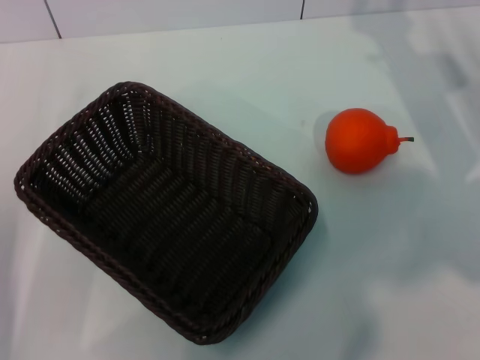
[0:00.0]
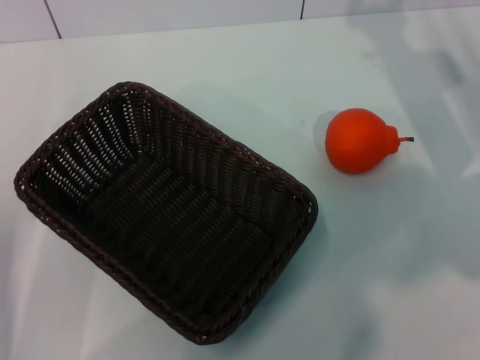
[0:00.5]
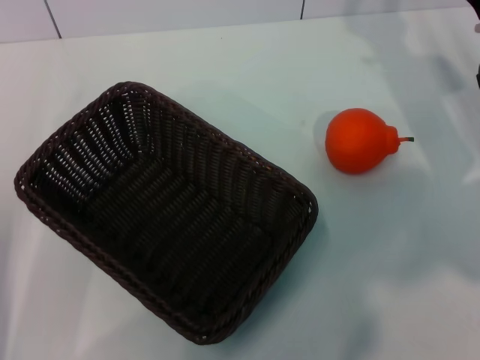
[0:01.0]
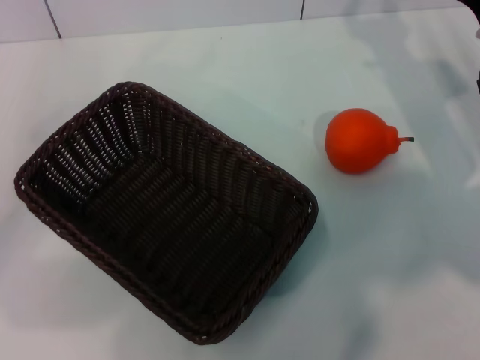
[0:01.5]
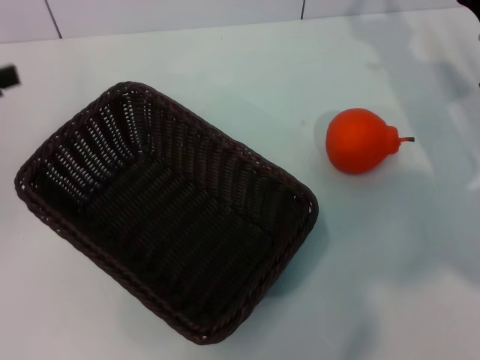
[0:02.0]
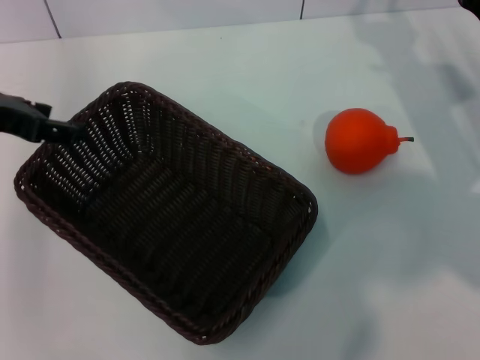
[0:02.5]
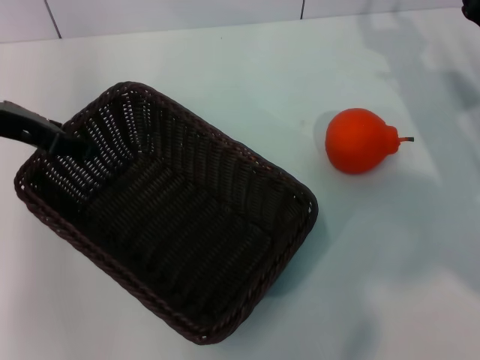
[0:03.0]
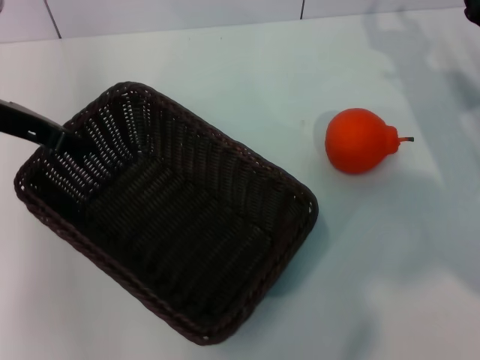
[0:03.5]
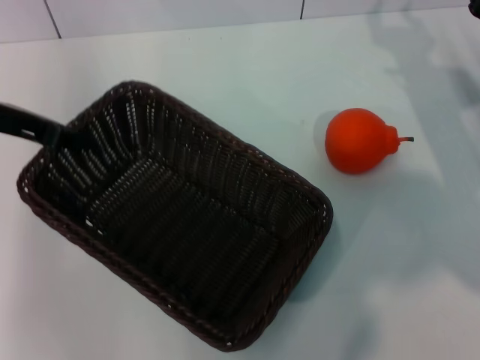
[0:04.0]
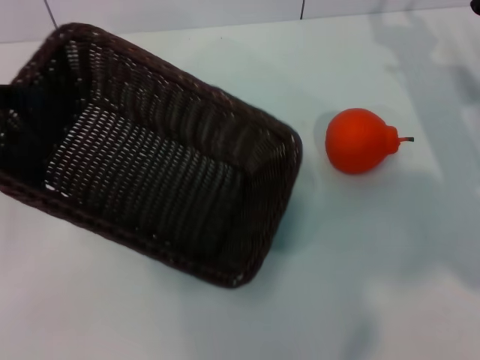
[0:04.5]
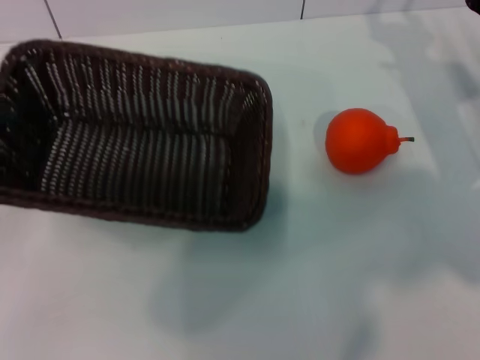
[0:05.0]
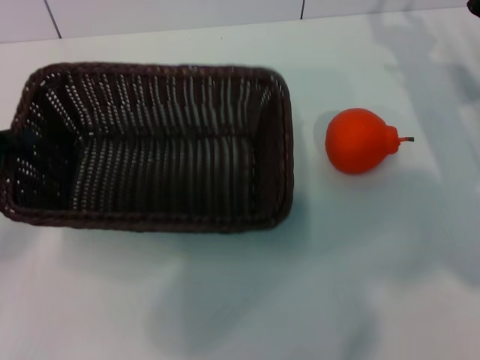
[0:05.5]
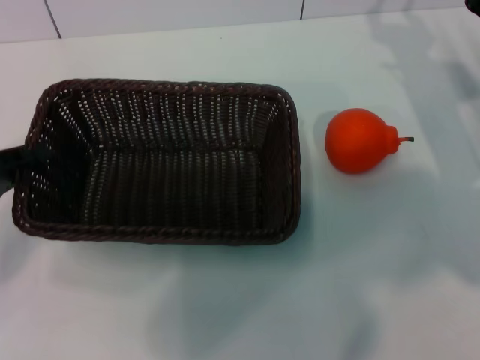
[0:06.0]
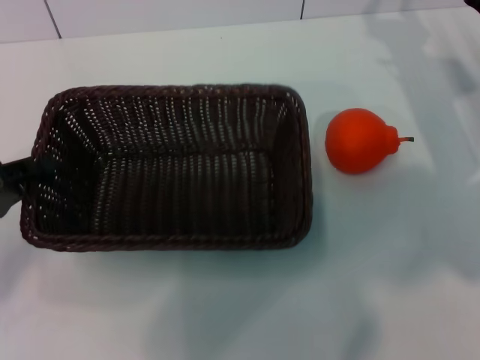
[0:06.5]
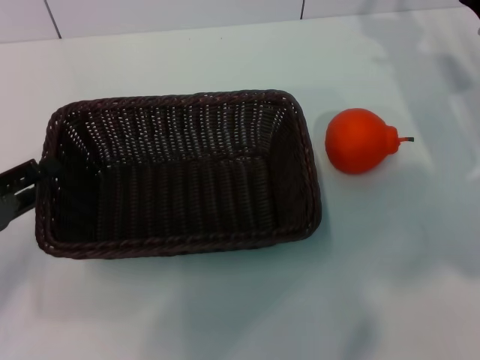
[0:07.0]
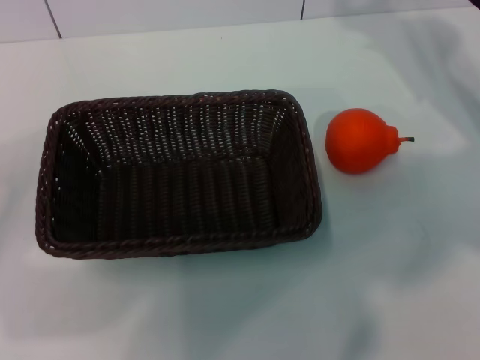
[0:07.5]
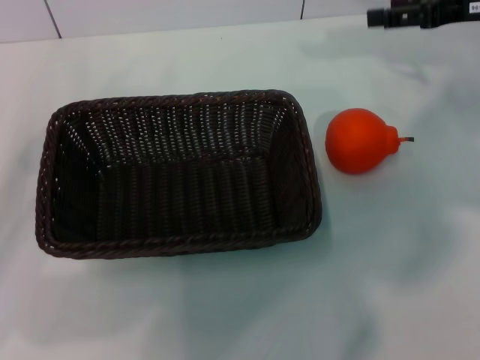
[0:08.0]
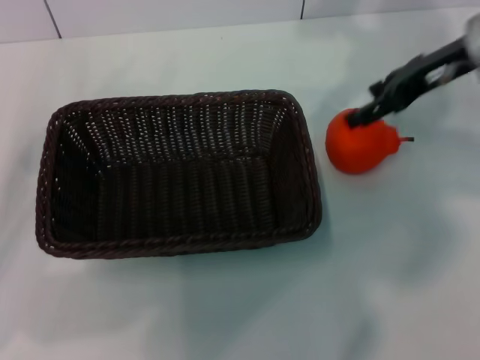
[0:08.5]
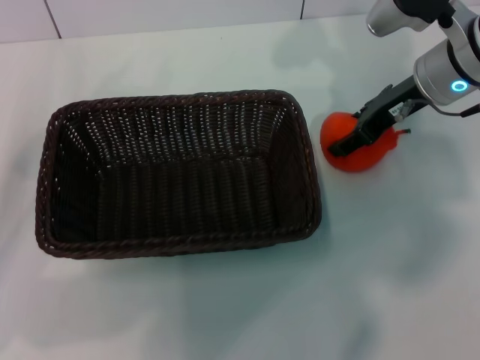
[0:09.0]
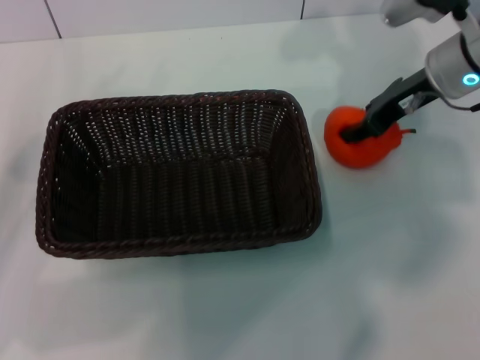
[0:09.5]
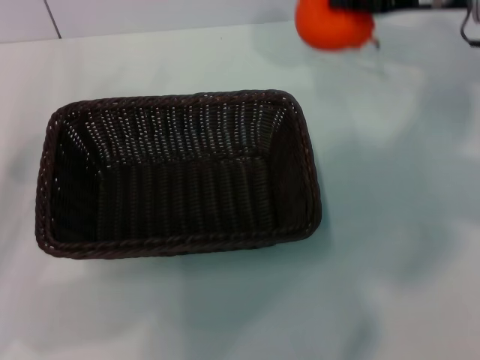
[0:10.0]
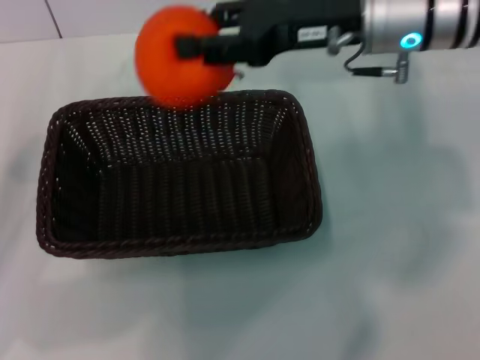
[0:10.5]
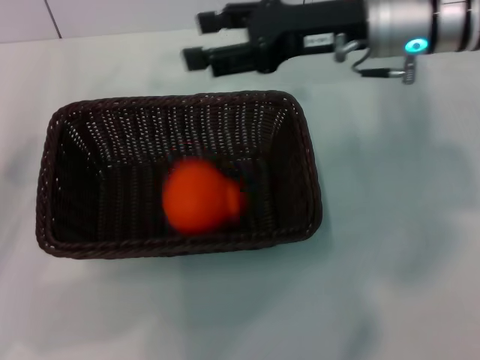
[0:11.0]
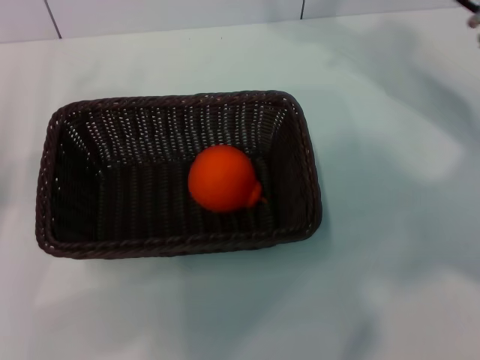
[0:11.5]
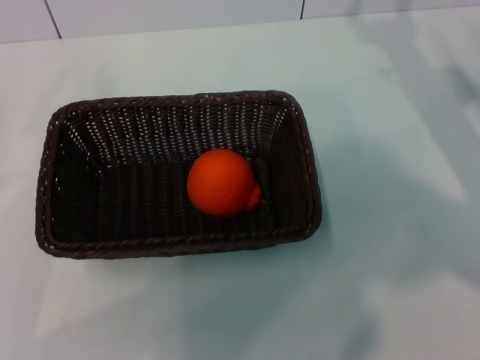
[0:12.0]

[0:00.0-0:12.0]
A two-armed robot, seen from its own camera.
Task of the whole recording: the left gripper pick up the black basket and place it horizontally in the middle of the table, the right gripper pick up the orange and place it into the black basket.
Step, 0:00.0 to 0:04.5: Pick up the dark basket with the left gripper.
Step, 0:05.0 to 0:07.0: Place the dark basket in the center of view with the left gripper.
Step, 0:07.5 to 0:09.5: Pick up the orange with the right gripper.
Step, 0:10.0 to 0:11.0: Place the orange into the dark basket with the right gripper.
0:00.0 to 0:02.0: The left gripper travels upward, forward and to the left by roughly 20 cm.
0:02.0 to 0:04.0: The left gripper is displaced to the right and forward by about 10 cm, and closes up.
0:04.0 to 0:06.0: The left gripper travels downward, backward and to the left by some 15 cm.
0:06.0 to 0:08.0: The left gripper opens up. The right gripper is displaced upward by about 10 cm.
0:08.0 to 0:10.0: The right gripper closes up.
0:10.0 to 0:12.0: The right gripper moves downward and backward, roughly 10 cm, moves some 10 cm to the left and comes back, and opens.
